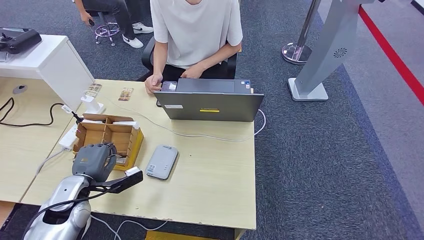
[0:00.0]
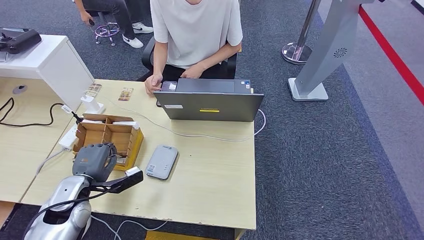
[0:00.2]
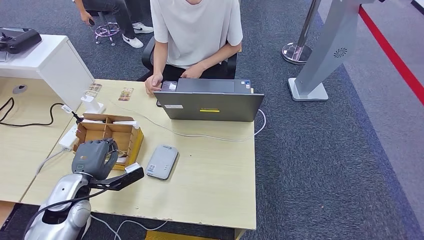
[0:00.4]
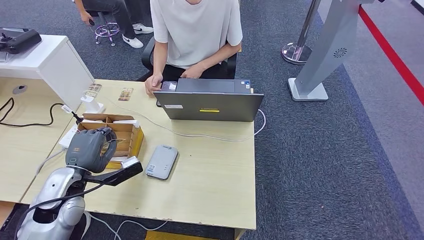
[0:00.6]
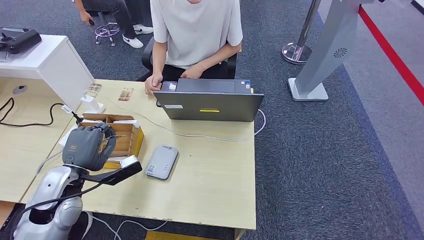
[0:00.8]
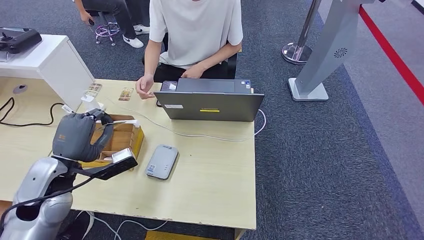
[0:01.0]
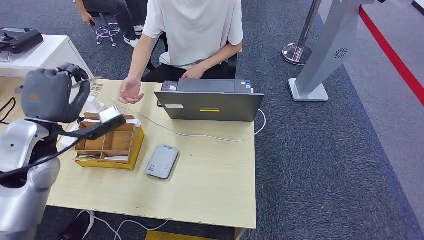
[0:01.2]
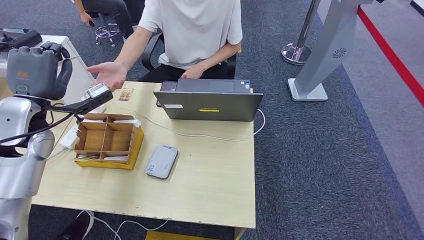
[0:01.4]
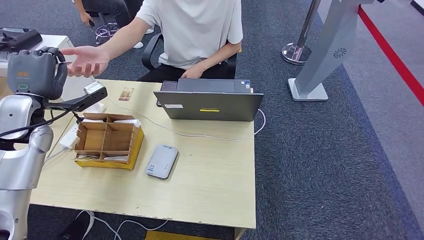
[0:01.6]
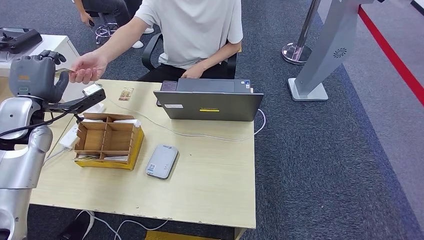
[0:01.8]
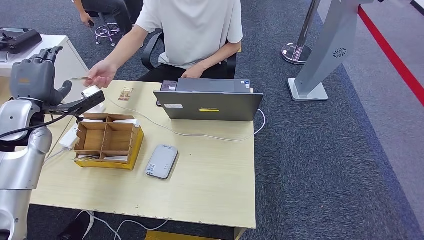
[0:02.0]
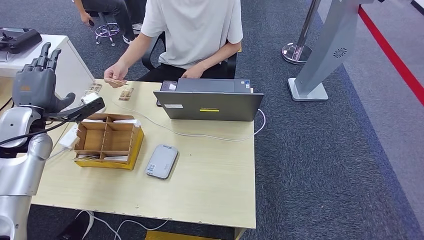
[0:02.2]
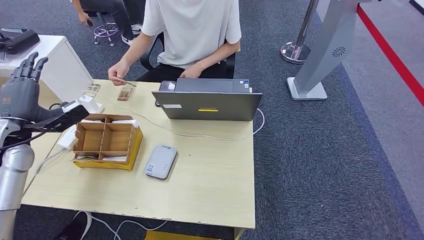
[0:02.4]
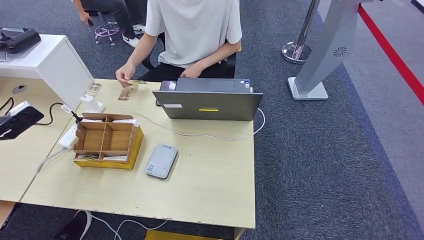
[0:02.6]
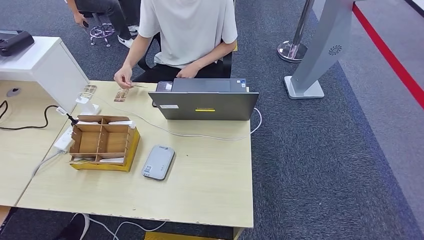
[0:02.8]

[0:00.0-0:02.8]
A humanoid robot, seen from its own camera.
Step, 0:00.6 to 0:02.8: Hand the room key to the person.
0:00.0 to 0:01.4: The left hand heads upward and forward, covering roughly 20 cm.
